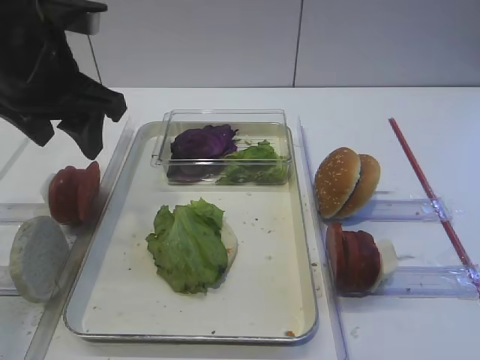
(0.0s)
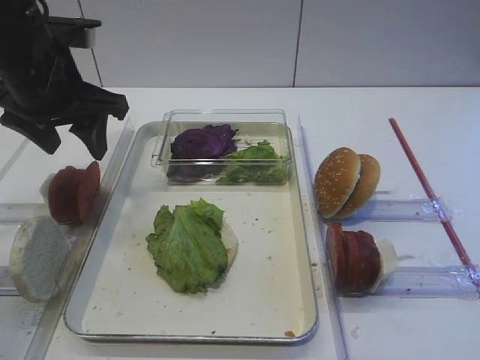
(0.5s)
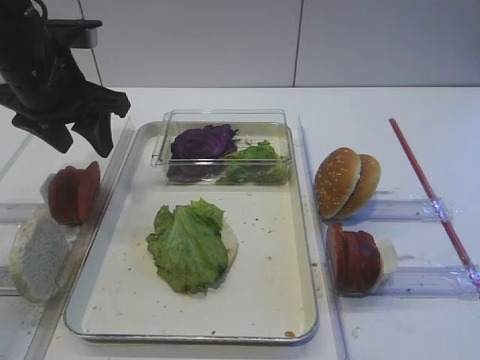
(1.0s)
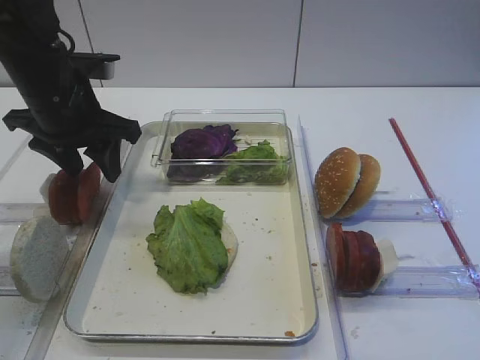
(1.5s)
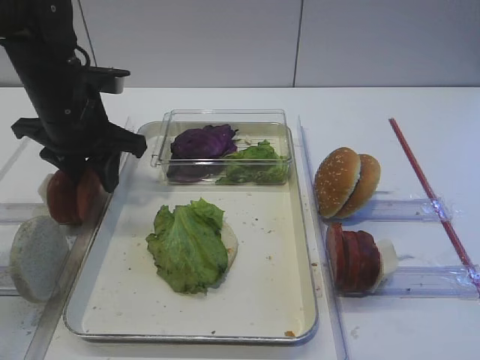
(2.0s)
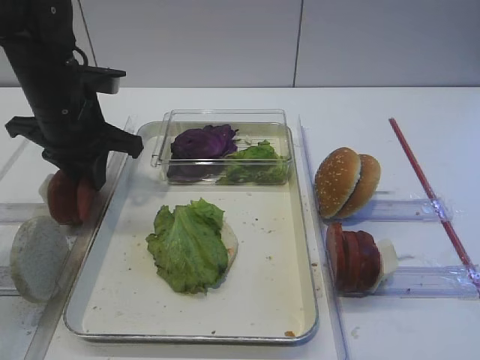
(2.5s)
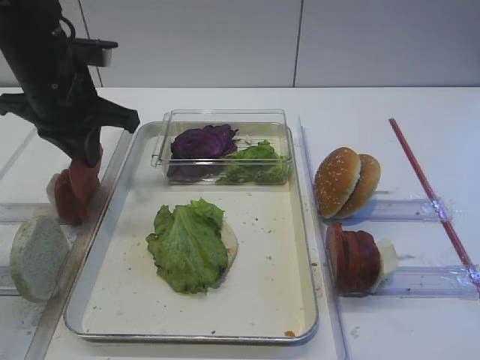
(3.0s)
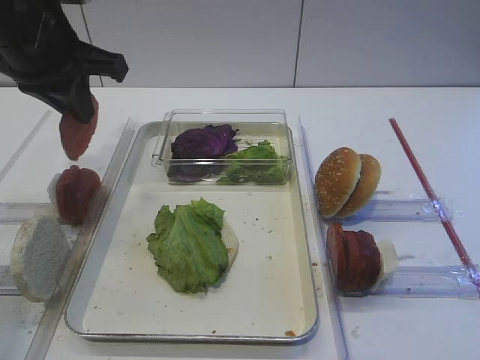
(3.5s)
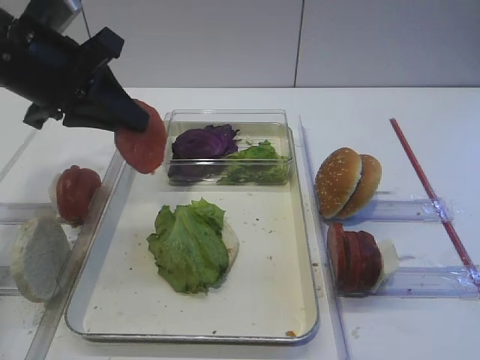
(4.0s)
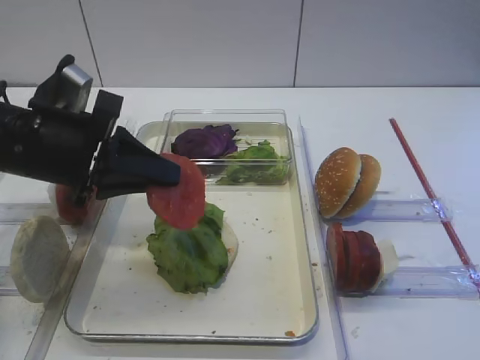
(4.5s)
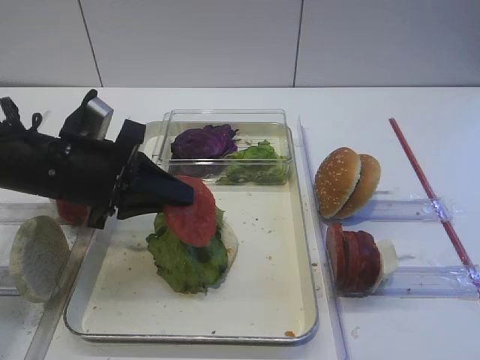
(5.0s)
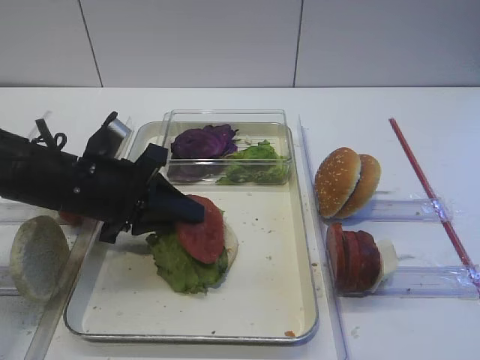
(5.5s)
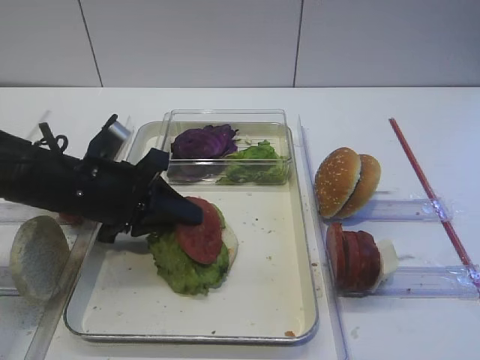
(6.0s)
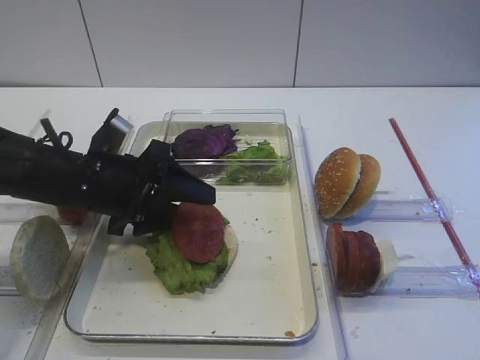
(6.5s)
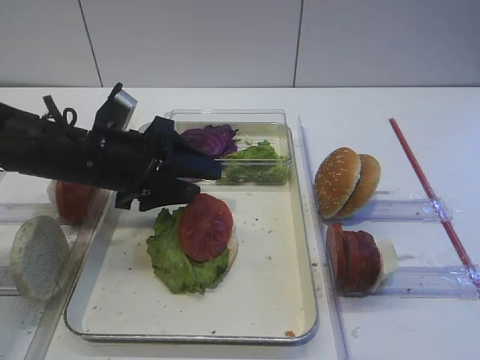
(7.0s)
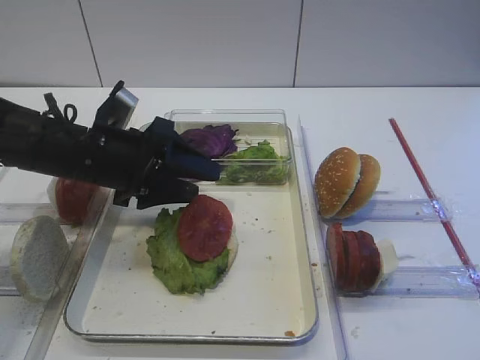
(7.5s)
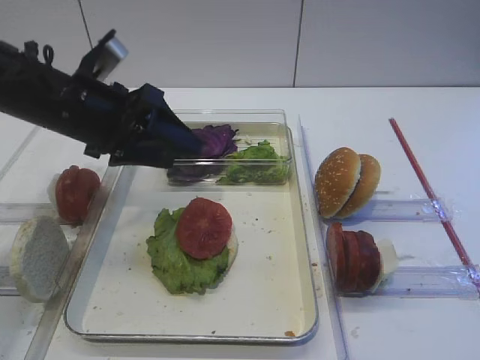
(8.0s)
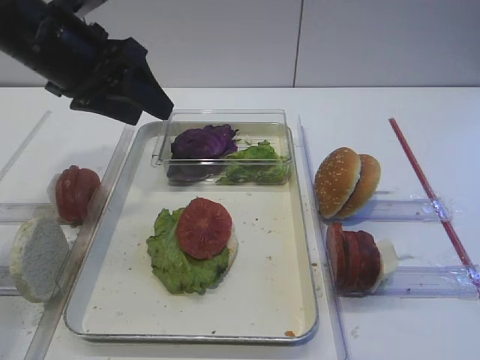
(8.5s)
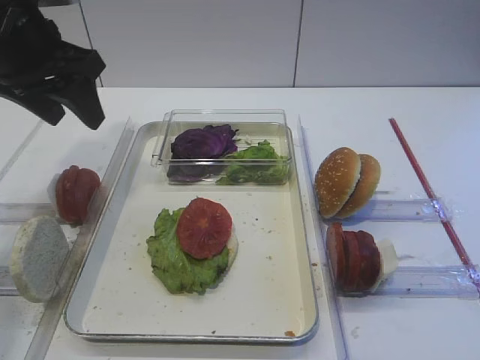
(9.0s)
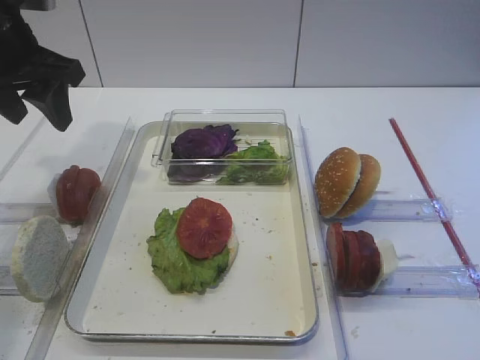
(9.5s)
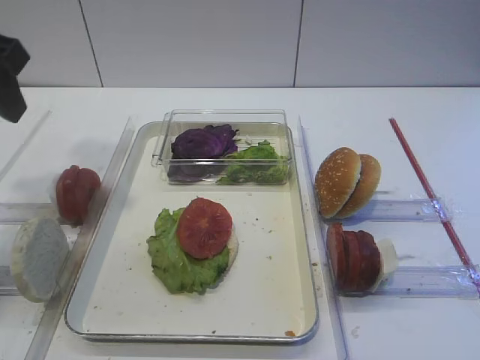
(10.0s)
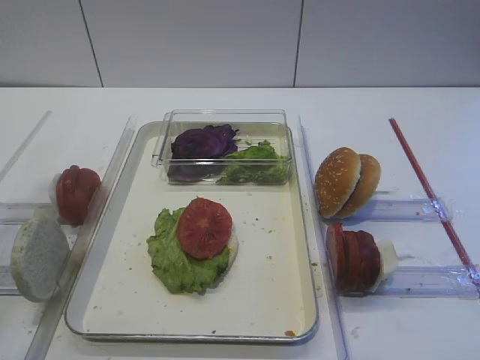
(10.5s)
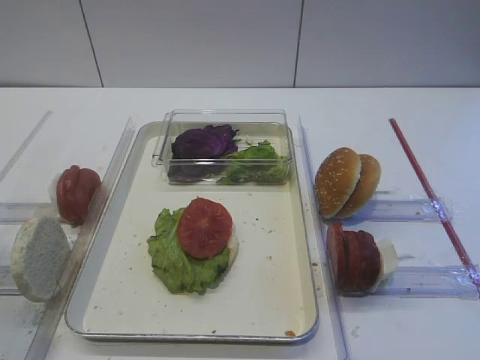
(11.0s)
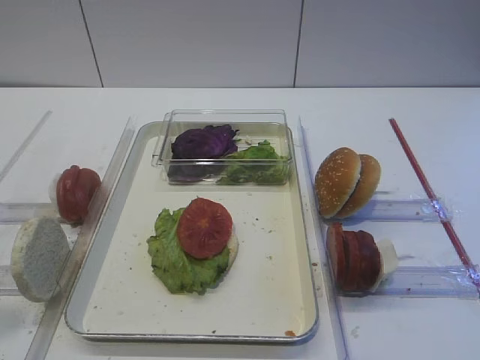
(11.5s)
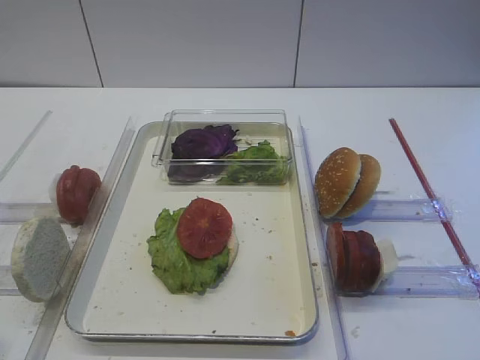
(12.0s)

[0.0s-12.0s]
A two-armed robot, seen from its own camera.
Step, 0.0s to 3.0s: Pick up the tomato slice with the left gripper.
Step, 3.5s to 7.5s: Place the tomato slice on the lettuce leaf with the left gripper.
0.0s to 2.0s: The left gripper is displaced downward and forward by roughly 10 cm.
2.0s to 4.0s: The left gripper travels upward and backward by roughly 10 cm, and closes its fingers.
4.0s to 6.0s: The left gripper moves downward, roughly 15 cm.
6.0s to 8.0s: The left gripper is displaced upward by some 10 cm, and opens.
8.0s to 10.0s: The left gripper shifts roughly 15 cm upward, to the left and backward.
10.0s to 12.0s: The left gripper goes about 25 cm backward and downward.

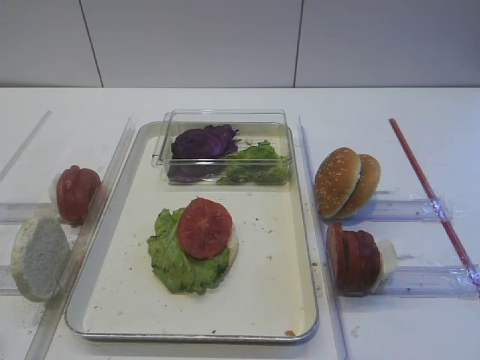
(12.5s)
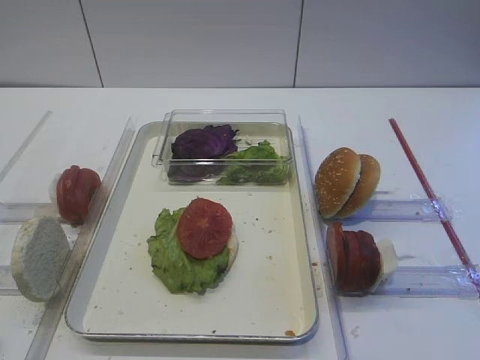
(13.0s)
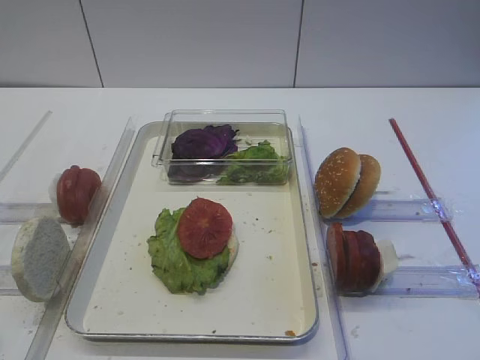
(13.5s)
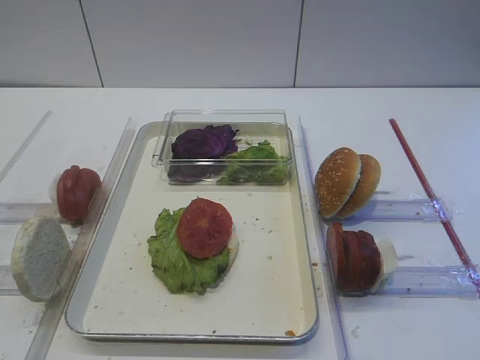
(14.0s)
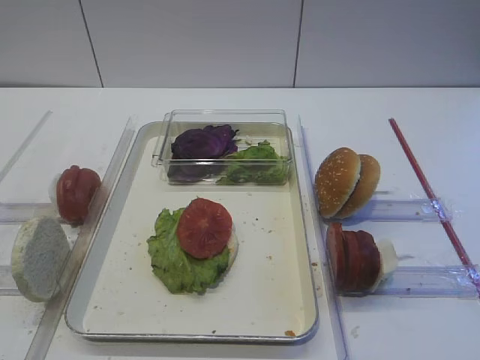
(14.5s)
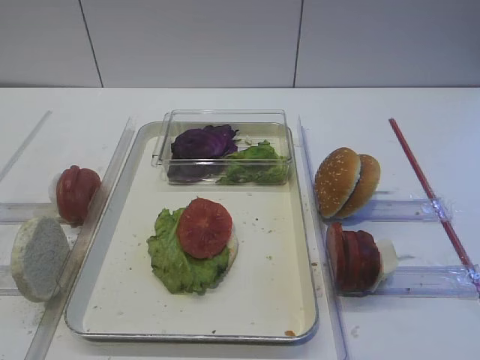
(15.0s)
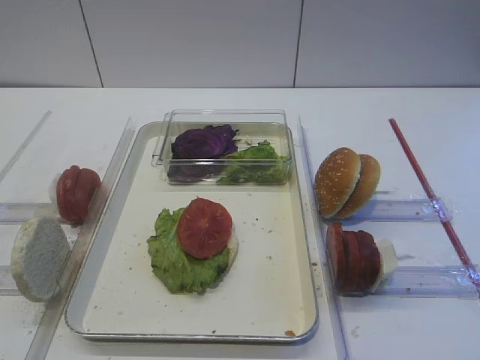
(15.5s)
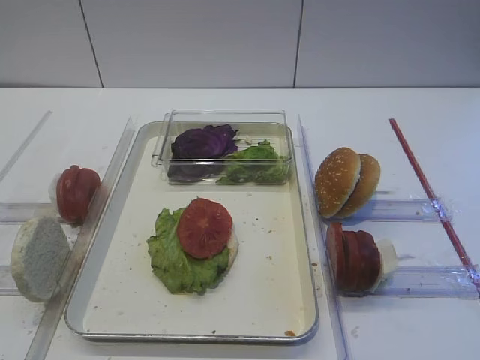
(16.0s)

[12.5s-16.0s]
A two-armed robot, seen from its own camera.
14.5s to 16.0s: Neither gripper changes place.

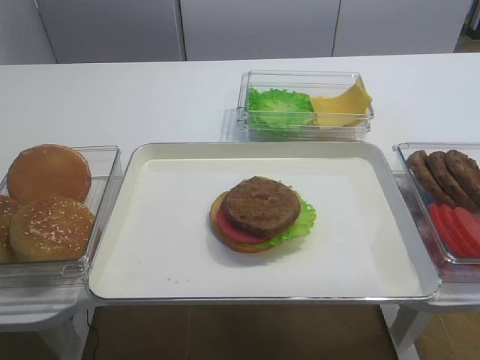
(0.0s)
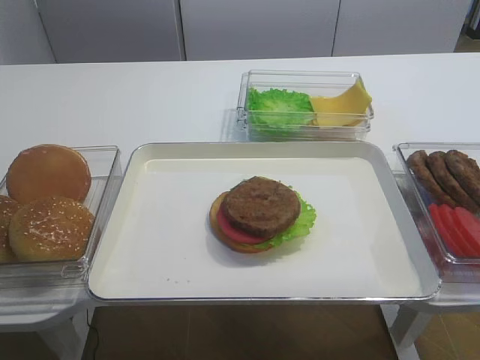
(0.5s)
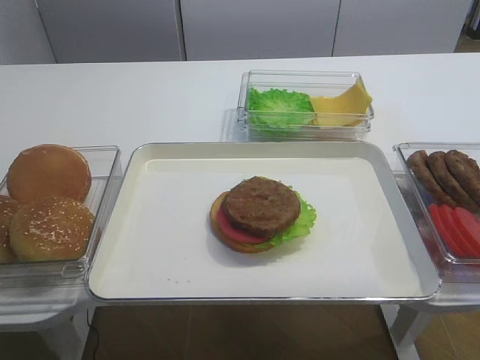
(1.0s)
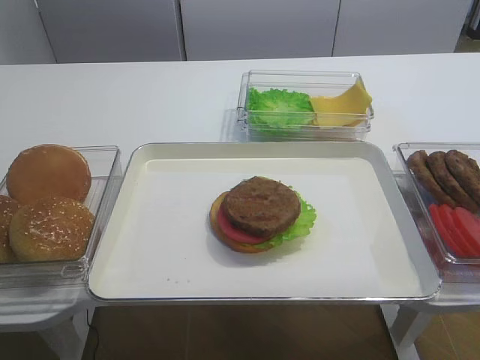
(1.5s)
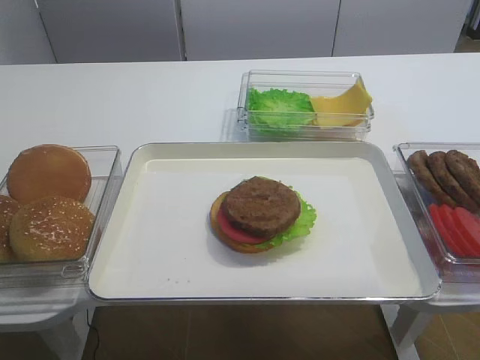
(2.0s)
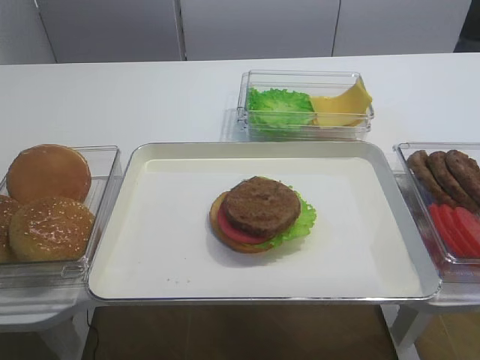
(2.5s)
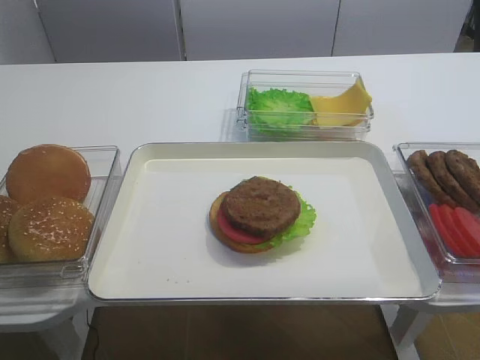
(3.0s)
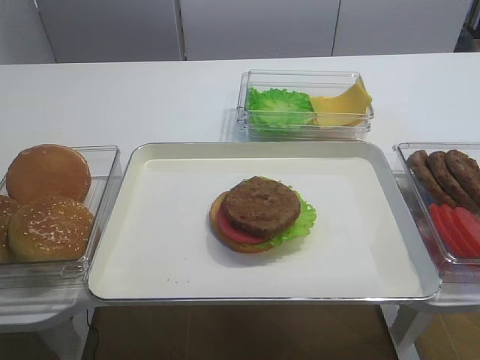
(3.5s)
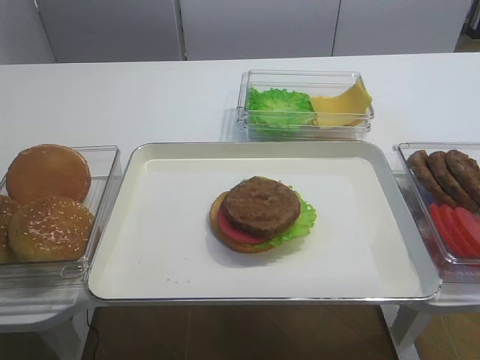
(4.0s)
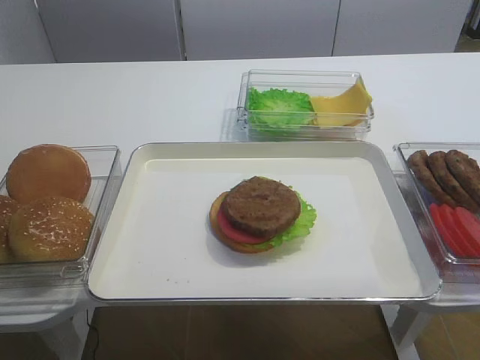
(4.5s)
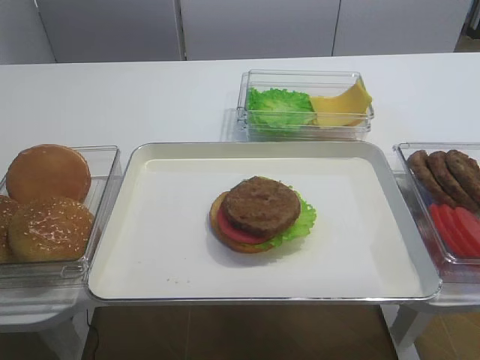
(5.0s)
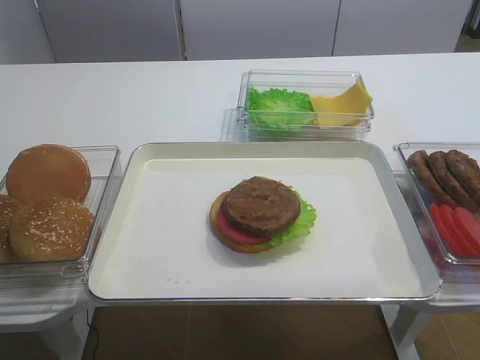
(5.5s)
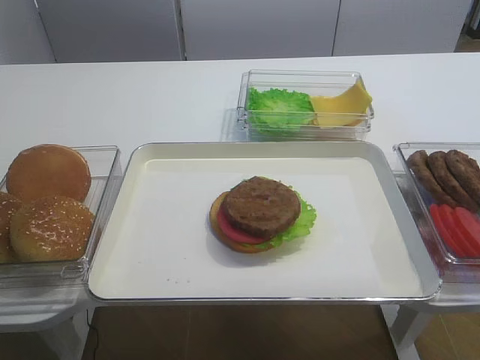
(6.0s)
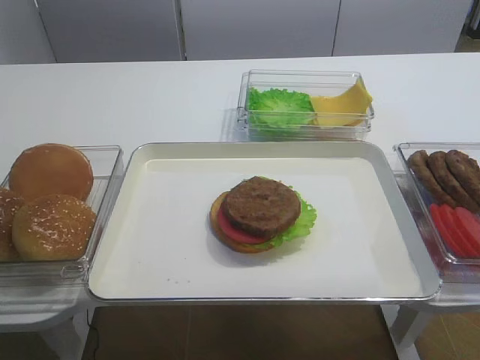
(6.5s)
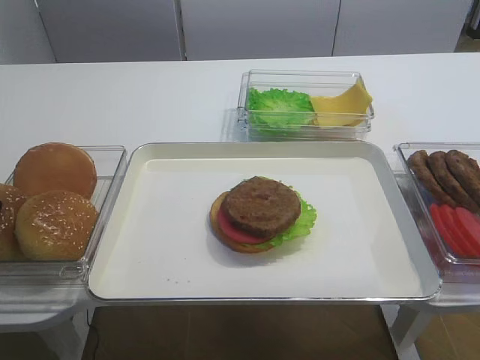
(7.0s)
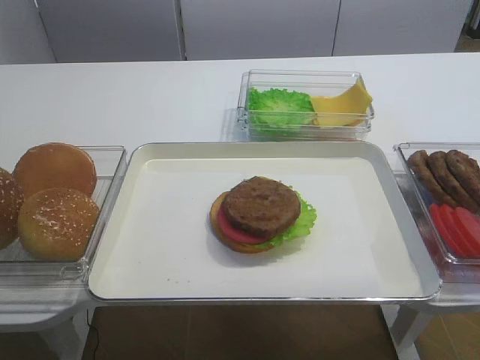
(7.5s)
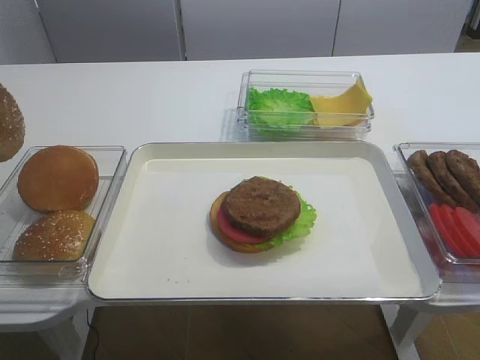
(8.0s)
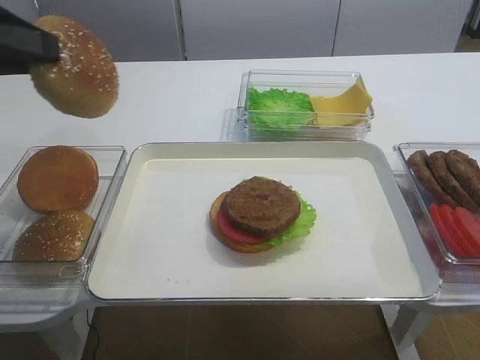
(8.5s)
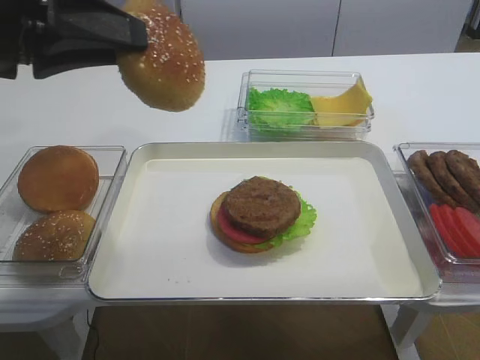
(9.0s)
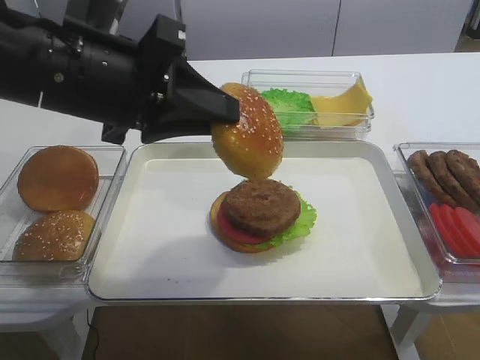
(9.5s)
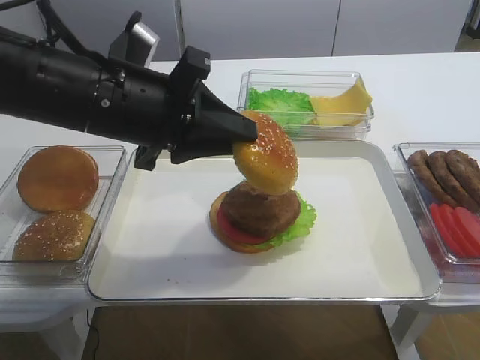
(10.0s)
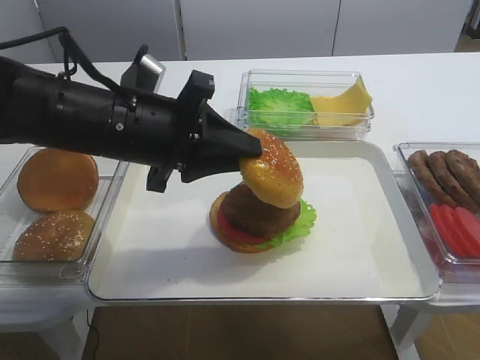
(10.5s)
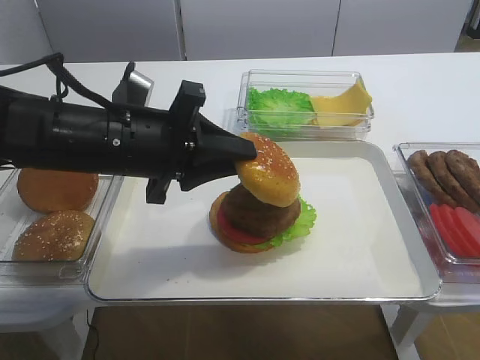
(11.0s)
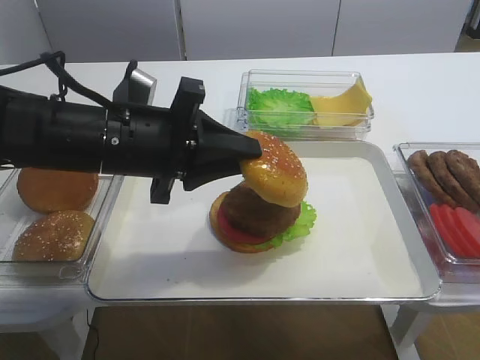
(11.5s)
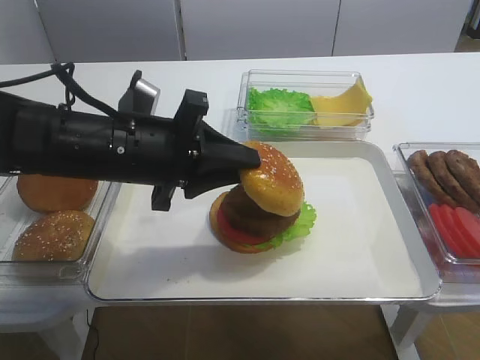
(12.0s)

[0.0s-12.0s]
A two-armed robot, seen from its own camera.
Step, 0.0s to 8.0s: Pick up the hamburger lid with the left gripper.
6.0s to 8.0s: The left gripper goes some 10 cm upward.
8.0s to 10.0s: The left gripper heads to the right, covering roughly 20 cm.
10.0s to 12.0s: The left gripper shifts approximately 5 cm downward.
